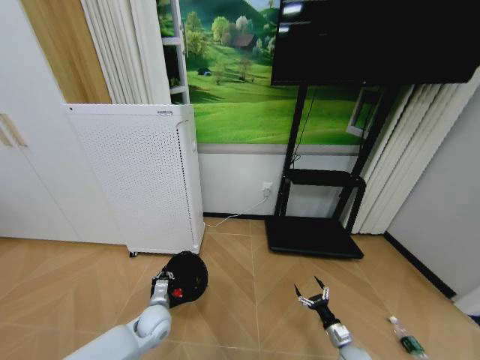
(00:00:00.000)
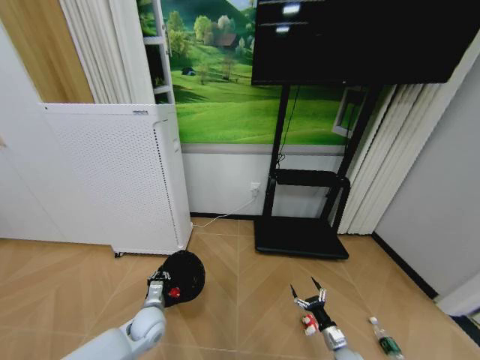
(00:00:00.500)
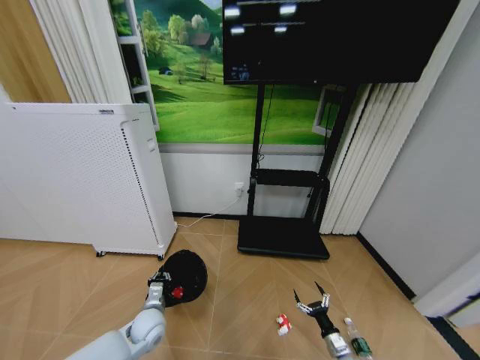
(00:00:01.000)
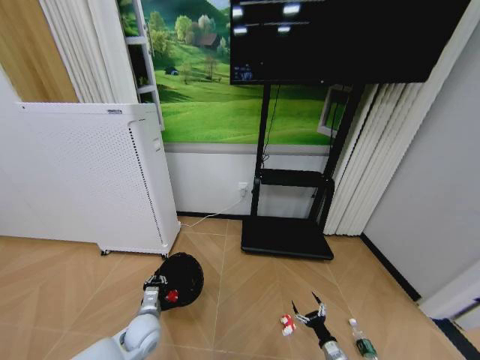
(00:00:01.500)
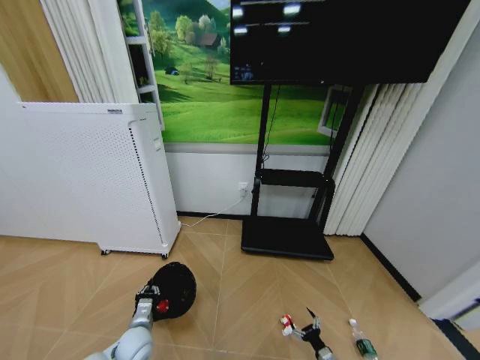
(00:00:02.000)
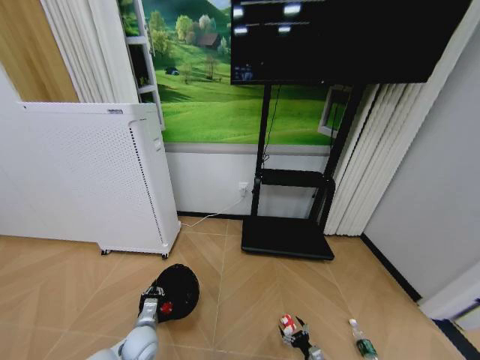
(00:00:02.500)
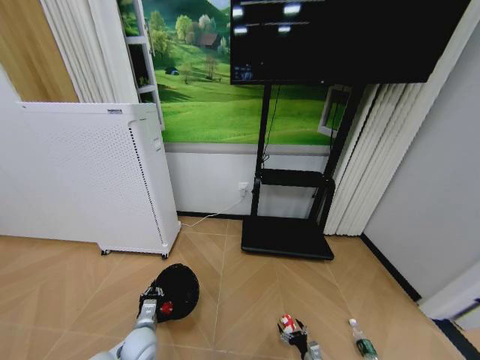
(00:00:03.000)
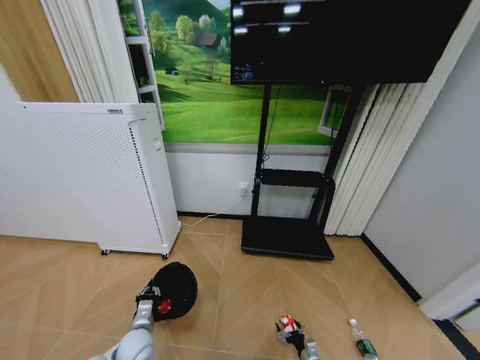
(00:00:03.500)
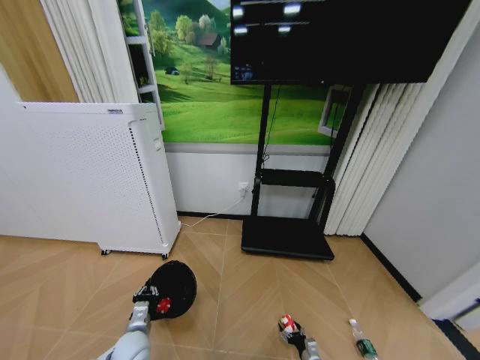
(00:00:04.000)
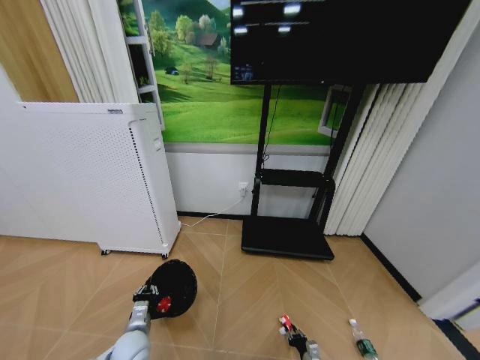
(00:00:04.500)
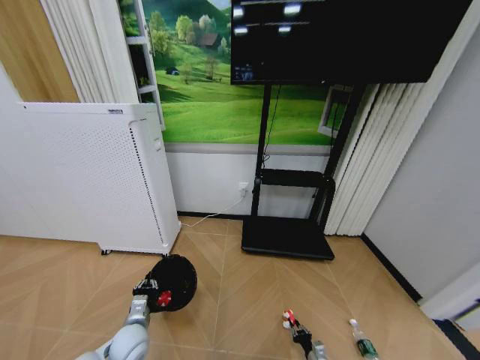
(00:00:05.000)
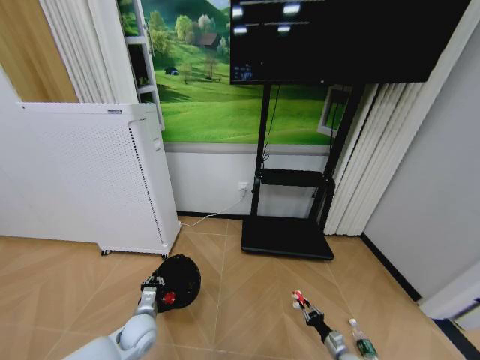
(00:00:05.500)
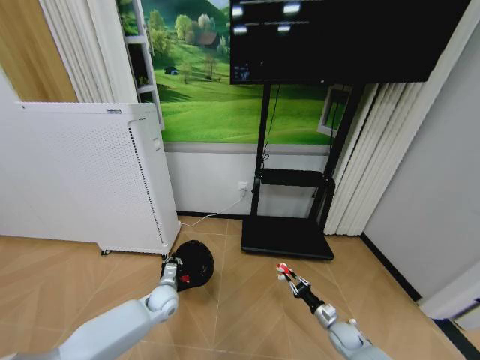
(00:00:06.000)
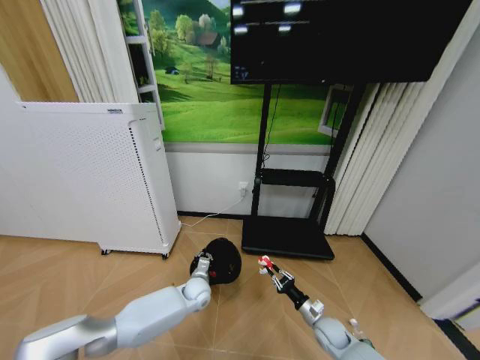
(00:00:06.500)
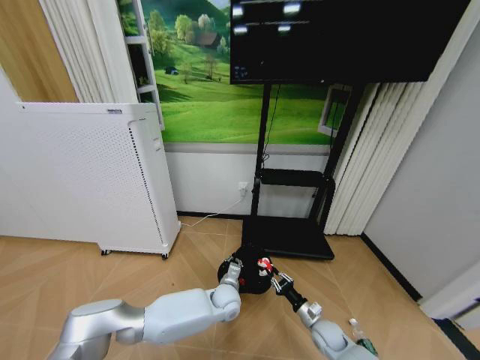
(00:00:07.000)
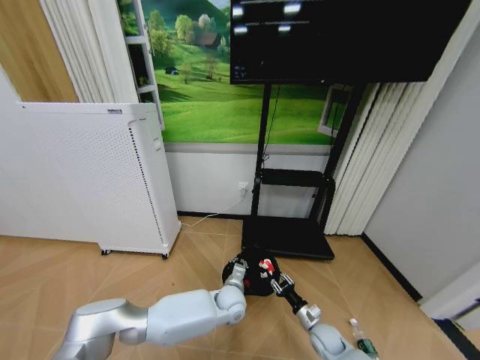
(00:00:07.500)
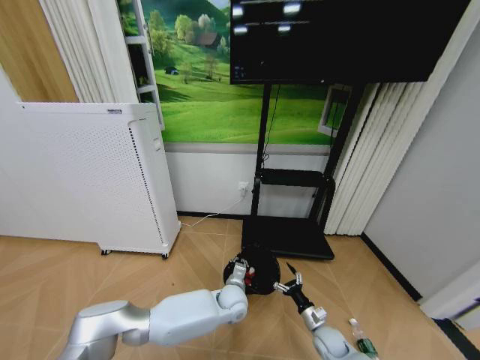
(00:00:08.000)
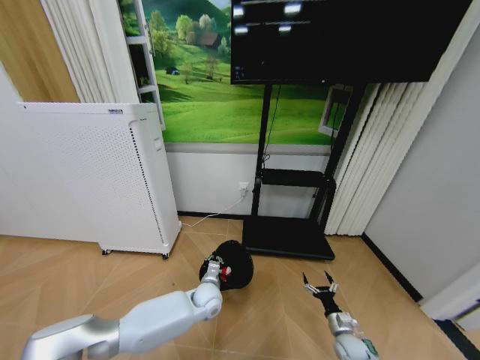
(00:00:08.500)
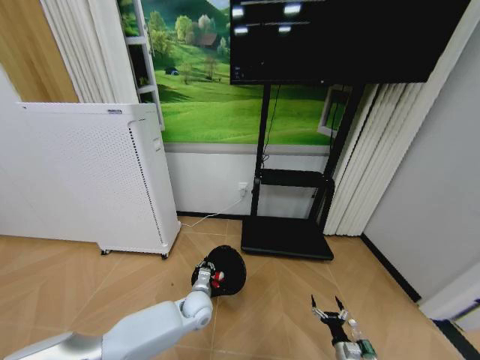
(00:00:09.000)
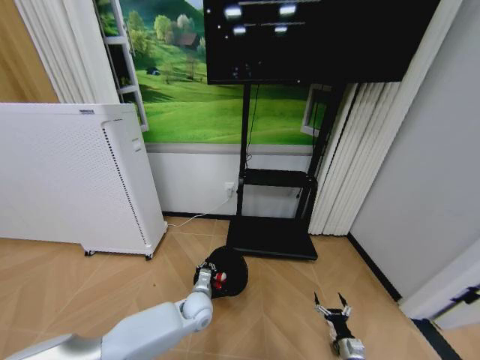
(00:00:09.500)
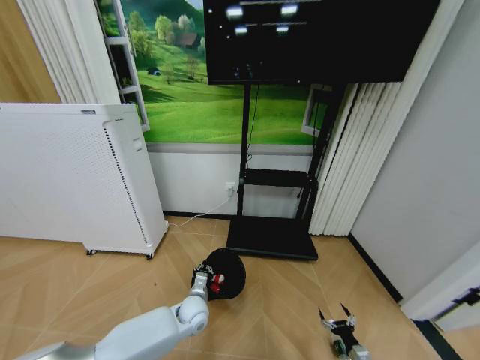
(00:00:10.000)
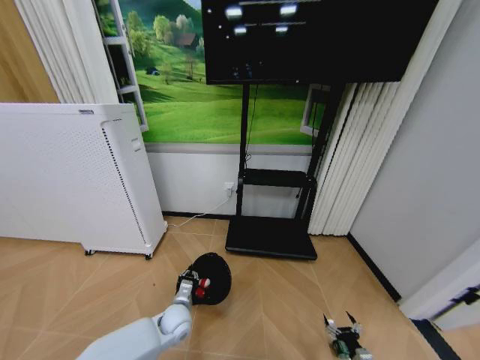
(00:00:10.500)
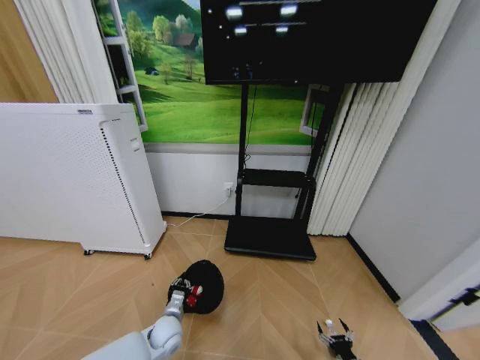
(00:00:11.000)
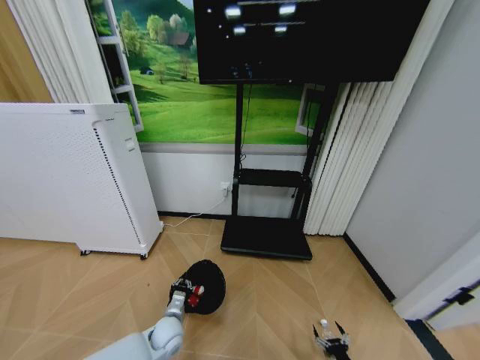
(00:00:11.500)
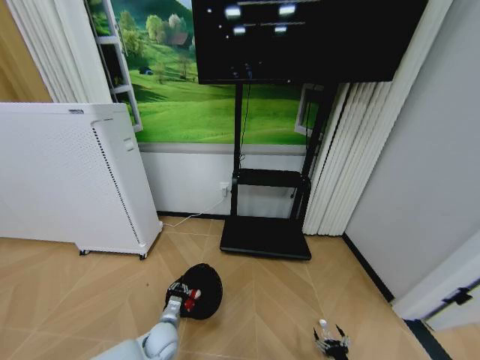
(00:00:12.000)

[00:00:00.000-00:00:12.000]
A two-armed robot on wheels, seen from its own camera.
Task of the whole recording: Pick up the trash bin and place the garbage on the floor into it.
00:00:00.000 to 00:00:02.000: The right gripper travels downward and backward by roughly 10 cm, while the left gripper goes about 5 cm backward.
00:00:02.000 to 00:00:04.000: The right gripper moves some 5 cm.
00:00:04.000 to 00:00:06.000: The right gripper shifts some 20 cm upward and forward, and closes; the left gripper heads forward and to the right, covering roughly 15 cm.
00:00:06.000 to 00:00:08.000: The right gripper goes roughly 5 cm to the left, and opens its fingers. Meanwhile the left gripper shifts approximately 25 cm to the right.
00:00:08.000 to 00:00:10.000: The left gripper shifts about 15 cm to the left. The right gripper heads to the right, backward and downward, covering approximately 20 cm.
00:00:10.000 to 00:00:12.000: The right gripper changes place by approximately 5 cm; the left gripper moves to the left and backward, some 10 cm.

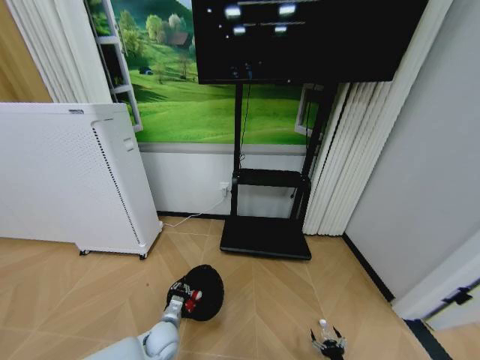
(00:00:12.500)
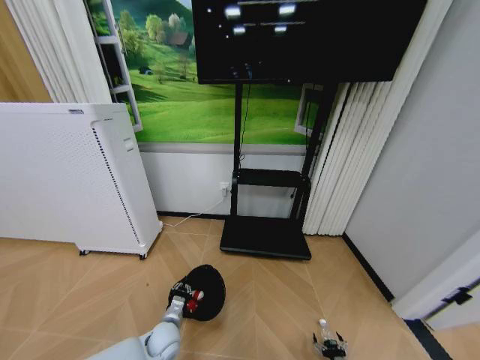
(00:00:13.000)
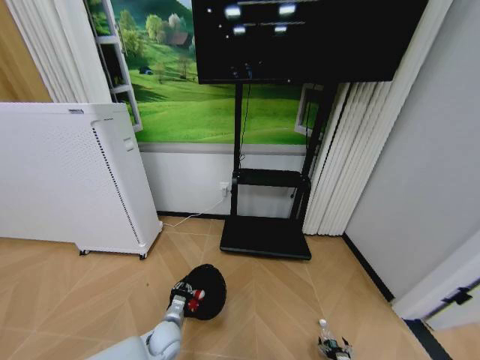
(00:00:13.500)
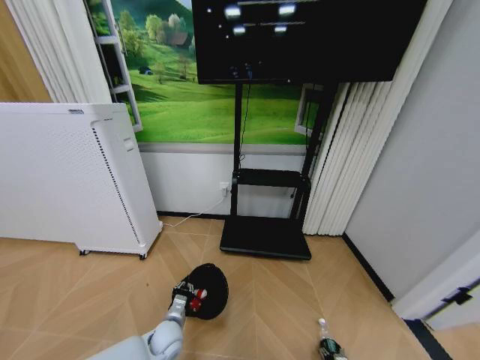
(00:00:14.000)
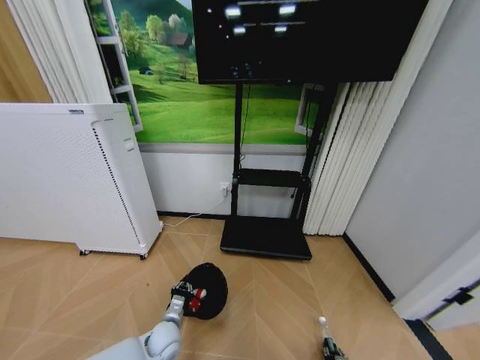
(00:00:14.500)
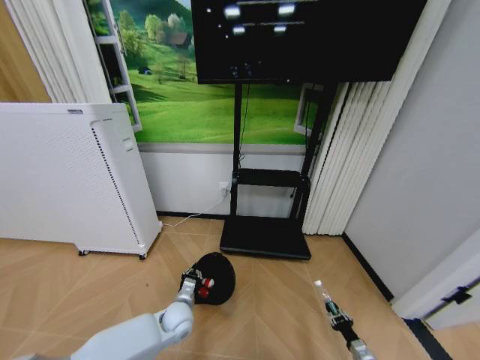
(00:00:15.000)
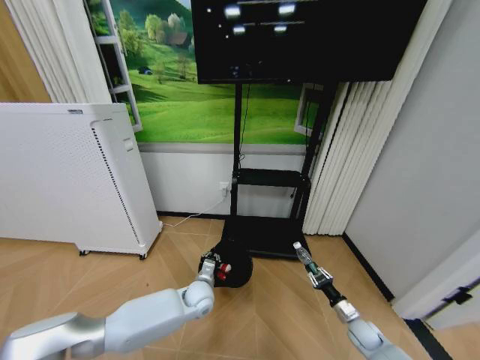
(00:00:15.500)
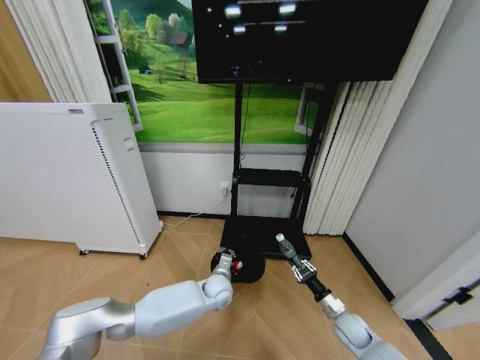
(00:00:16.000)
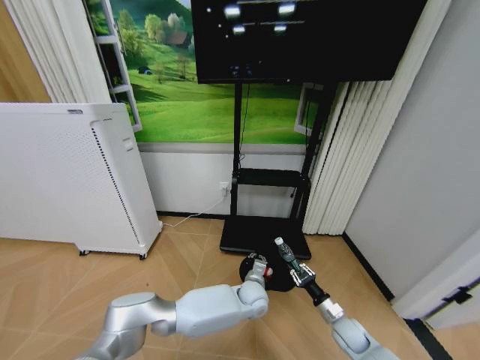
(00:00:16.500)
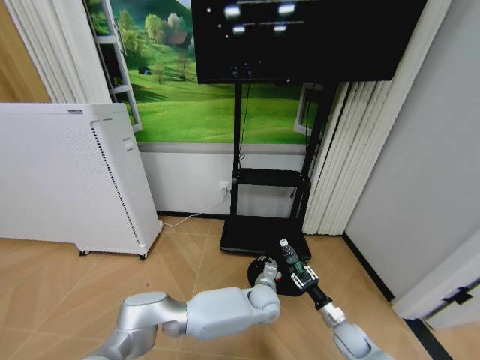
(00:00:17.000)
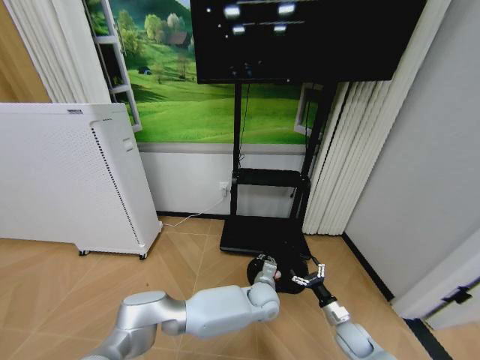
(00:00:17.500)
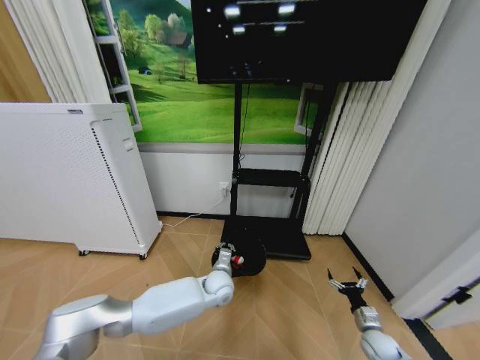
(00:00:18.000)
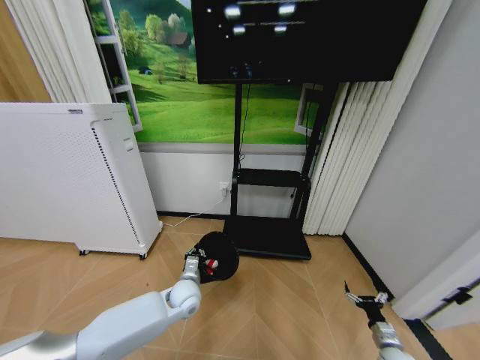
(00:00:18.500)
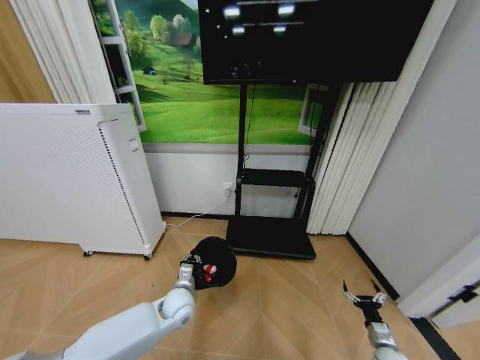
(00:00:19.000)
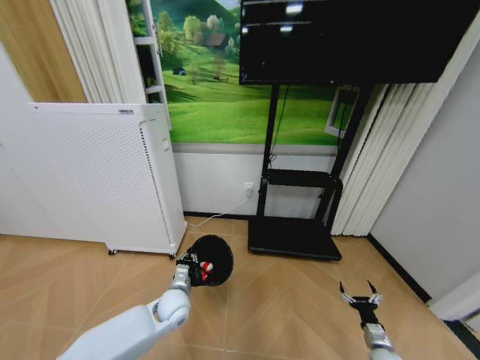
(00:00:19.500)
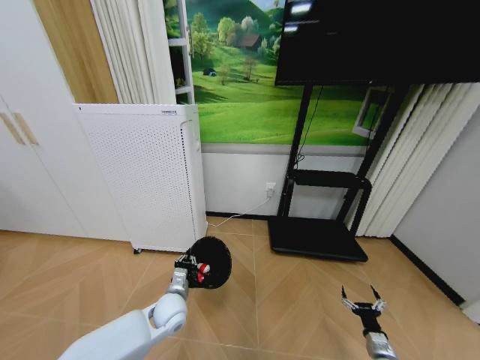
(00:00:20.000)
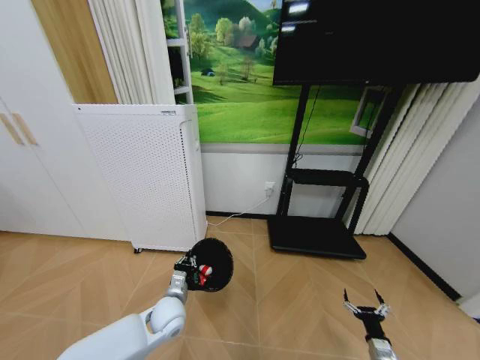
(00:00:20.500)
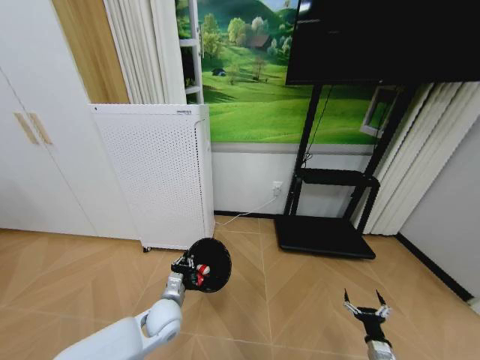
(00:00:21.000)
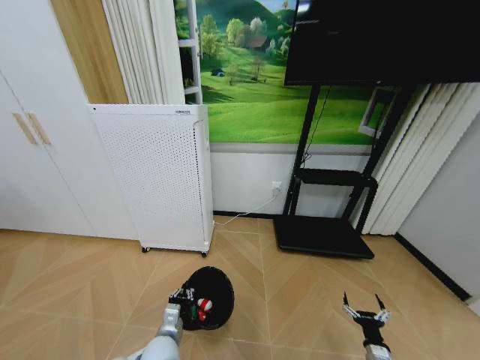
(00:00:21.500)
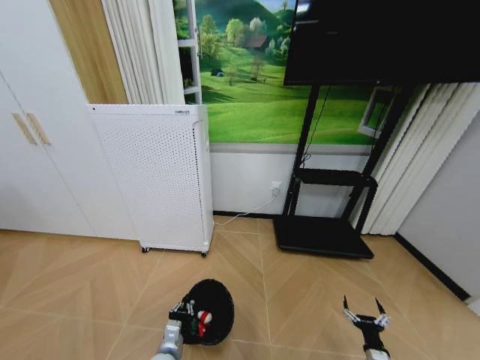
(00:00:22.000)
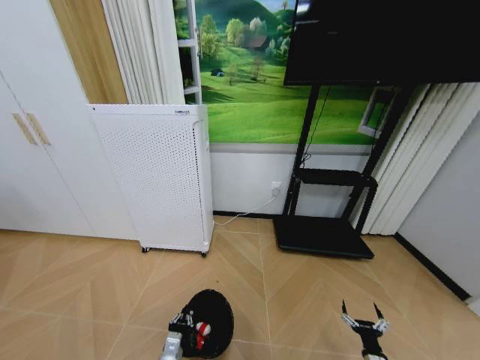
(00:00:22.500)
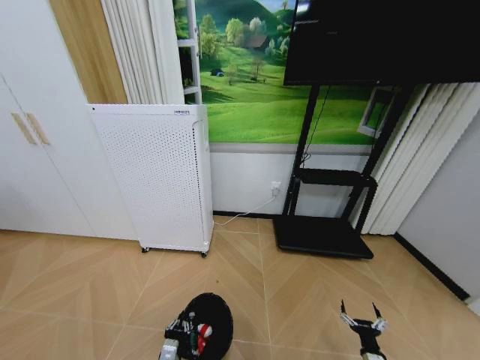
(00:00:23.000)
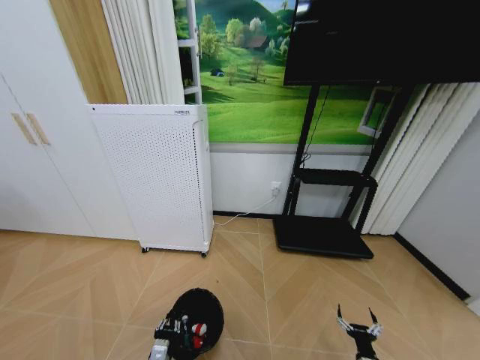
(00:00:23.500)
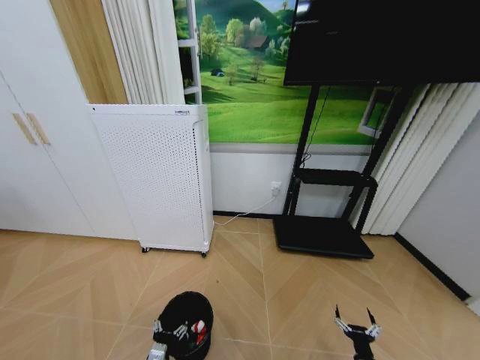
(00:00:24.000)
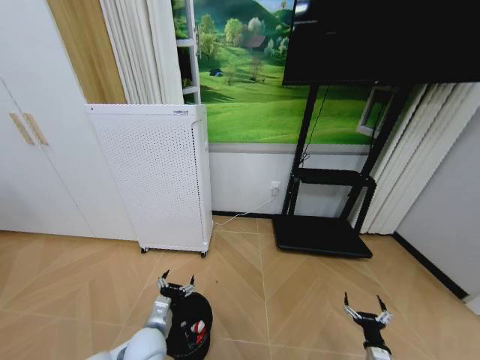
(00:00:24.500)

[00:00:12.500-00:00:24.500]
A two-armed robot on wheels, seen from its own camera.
Task of the whole recording: Pick up the trash bin and place the garbage on the floor into it.
00:00:12.500 to 00:00:14.500: The right gripper closes.
00:00:14.500 to 00:00:16.500: The left gripper moves to the right, some 30 cm. Meanwhile the right gripper goes some 25 cm upward and forward.
00:00:16.500 to 00:00:18.500: The right gripper shifts approximately 15 cm to the right, backward and downward, and opens its fingers, while the left gripper heads to the left, covering some 25 cm.
00:00:18.500 to 00:00:20.500: The left gripper shifts by some 5 cm; the right gripper moves roughly 5 cm.
00:00:20.500 to 00:00:22.500: The left gripper is displaced backward and downward by about 15 cm. Meanwhile the right gripper shifts by approximately 5 cm.
00:00:22.500 to 00:00:24.500: The left gripper heads upward and forward, covering roughly 10 cm, and opens up.

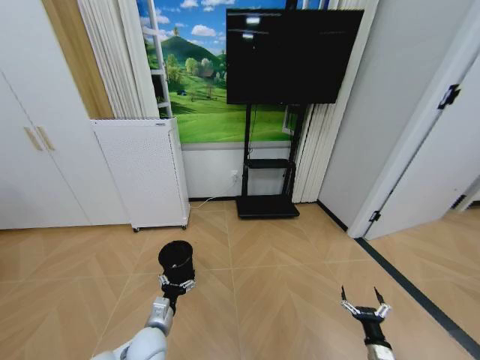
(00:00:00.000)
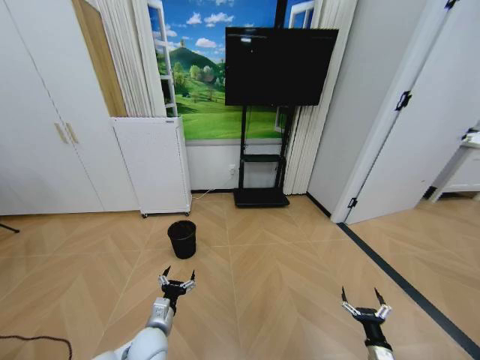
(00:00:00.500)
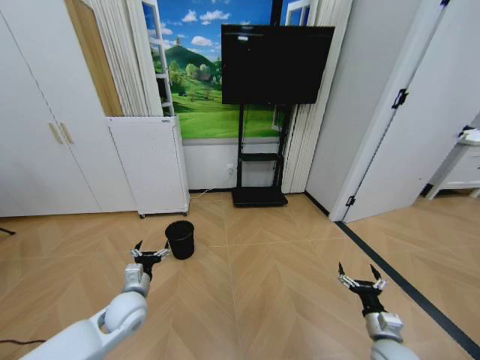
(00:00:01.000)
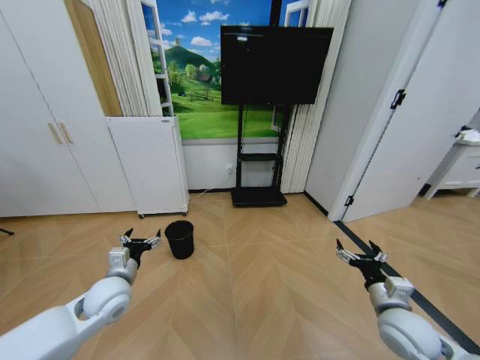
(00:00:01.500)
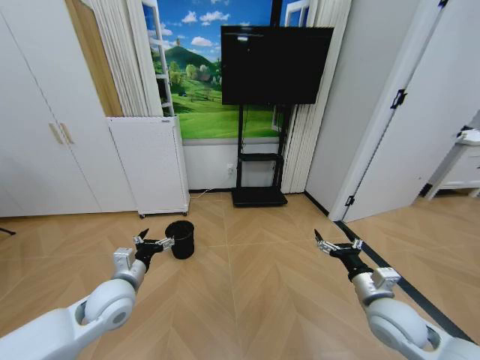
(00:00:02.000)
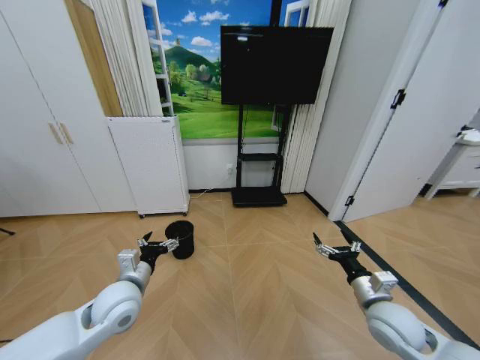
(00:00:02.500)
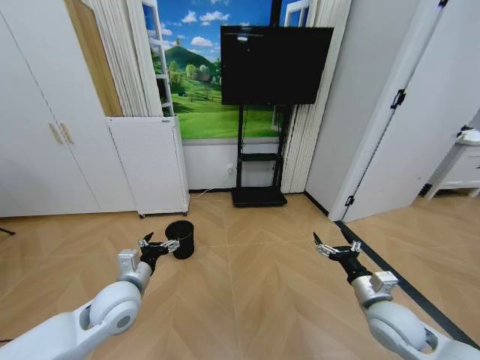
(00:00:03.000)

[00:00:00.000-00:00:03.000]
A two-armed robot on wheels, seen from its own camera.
Task of the whole recording: Pick up the trash bin and place the garbage on the floor into it.
00:00:00.000 to 00:00:01.500: The left gripper shifts some 15 cm upward, to the left and forward. Meanwhile the right gripper travels upward by about 25 cm.
00:00:01.500 to 00:00:03.000: The left gripper changes place by some 5 cm.
